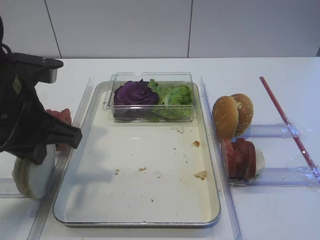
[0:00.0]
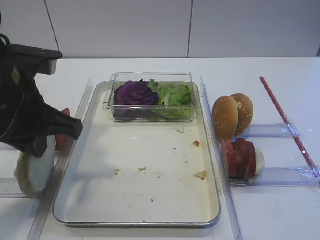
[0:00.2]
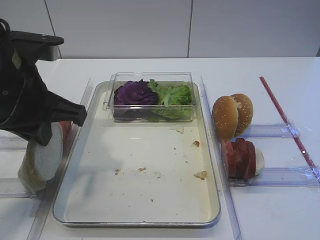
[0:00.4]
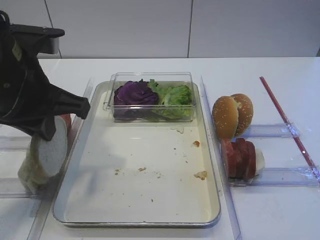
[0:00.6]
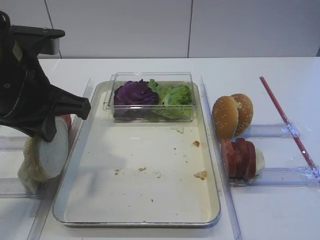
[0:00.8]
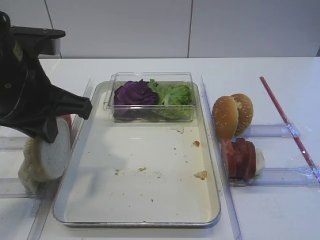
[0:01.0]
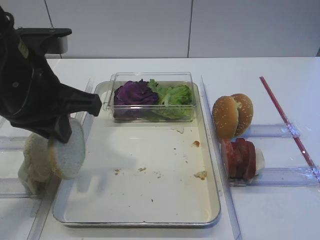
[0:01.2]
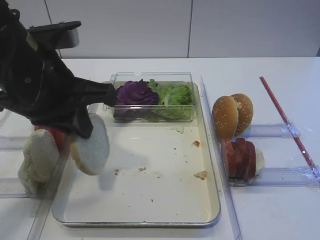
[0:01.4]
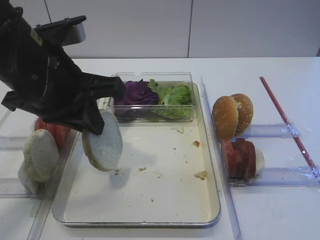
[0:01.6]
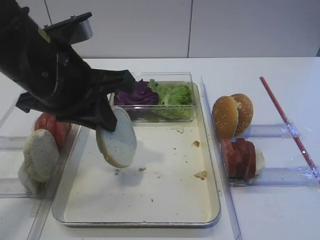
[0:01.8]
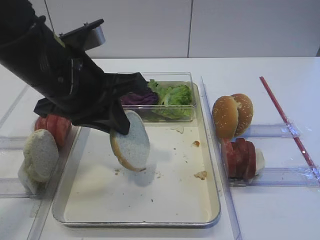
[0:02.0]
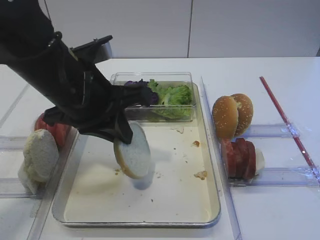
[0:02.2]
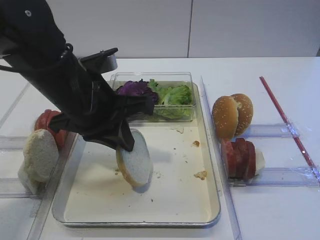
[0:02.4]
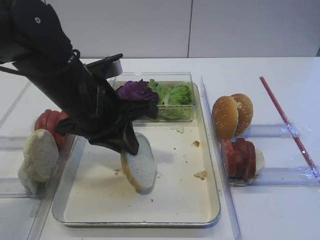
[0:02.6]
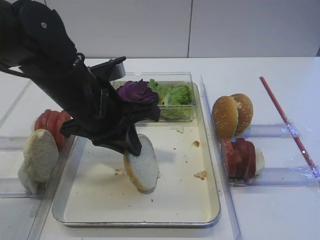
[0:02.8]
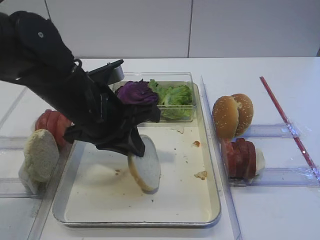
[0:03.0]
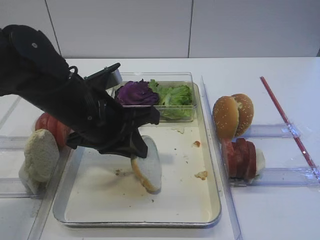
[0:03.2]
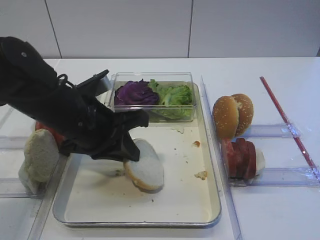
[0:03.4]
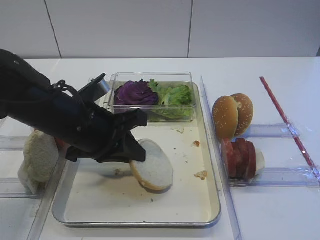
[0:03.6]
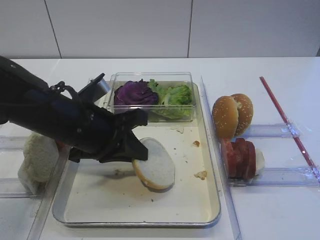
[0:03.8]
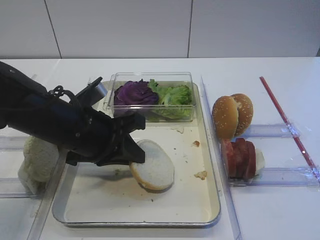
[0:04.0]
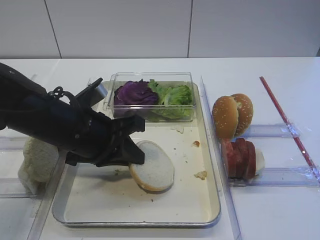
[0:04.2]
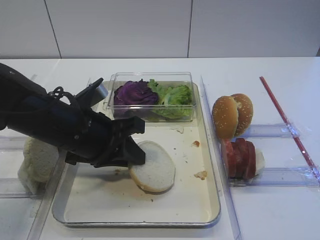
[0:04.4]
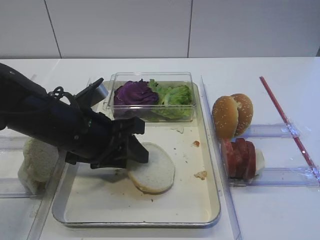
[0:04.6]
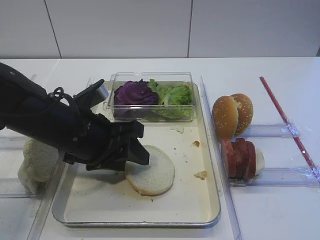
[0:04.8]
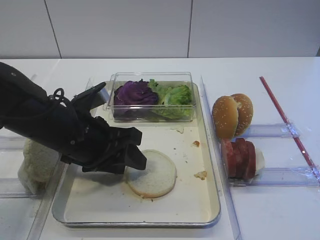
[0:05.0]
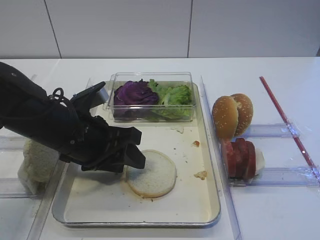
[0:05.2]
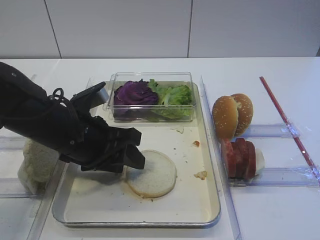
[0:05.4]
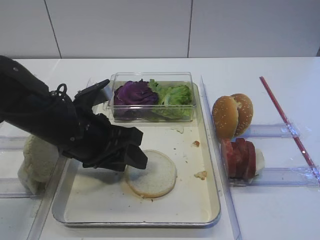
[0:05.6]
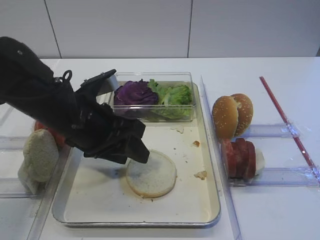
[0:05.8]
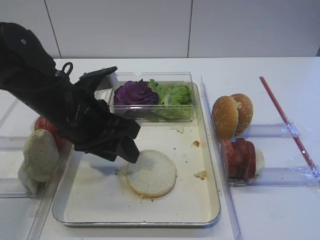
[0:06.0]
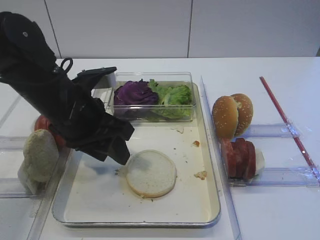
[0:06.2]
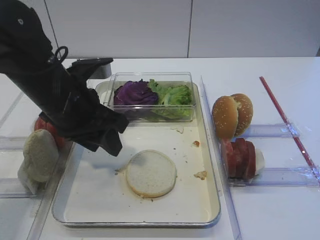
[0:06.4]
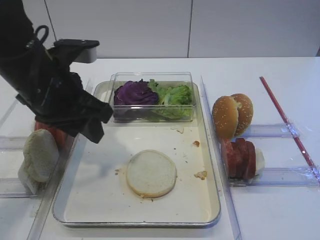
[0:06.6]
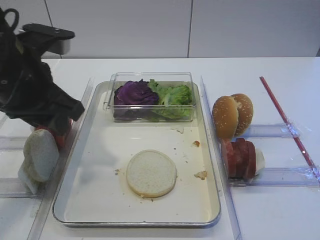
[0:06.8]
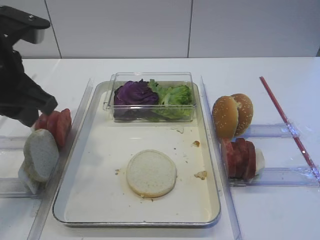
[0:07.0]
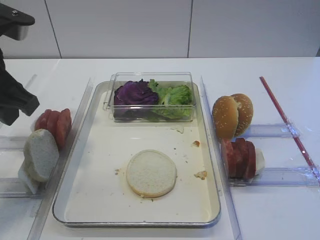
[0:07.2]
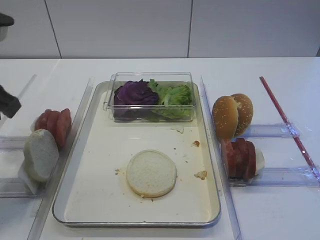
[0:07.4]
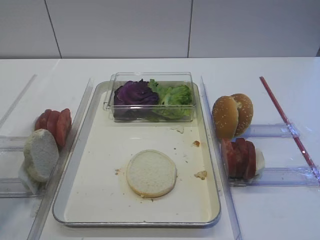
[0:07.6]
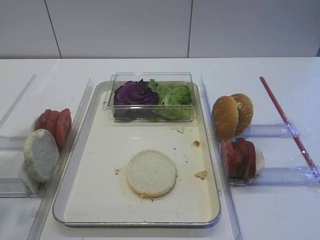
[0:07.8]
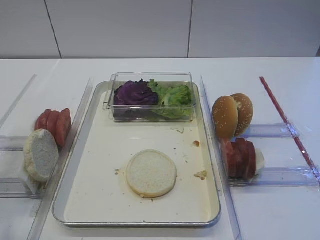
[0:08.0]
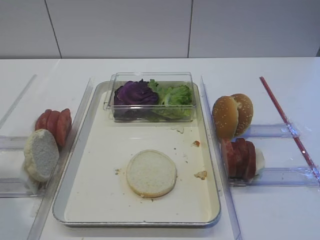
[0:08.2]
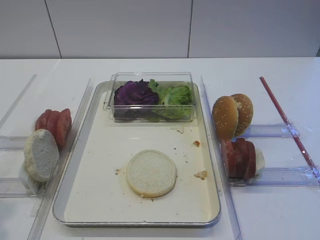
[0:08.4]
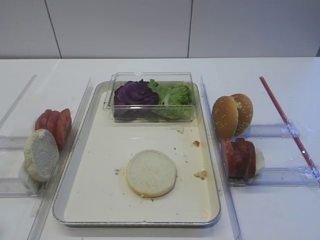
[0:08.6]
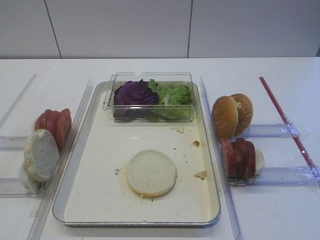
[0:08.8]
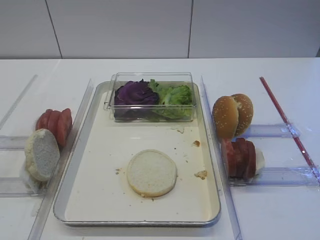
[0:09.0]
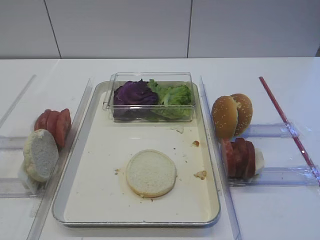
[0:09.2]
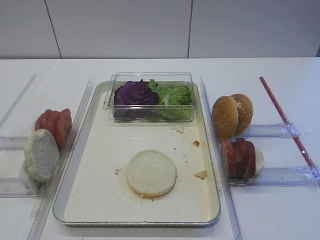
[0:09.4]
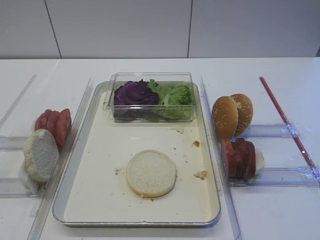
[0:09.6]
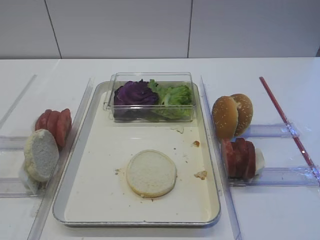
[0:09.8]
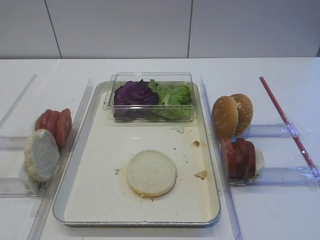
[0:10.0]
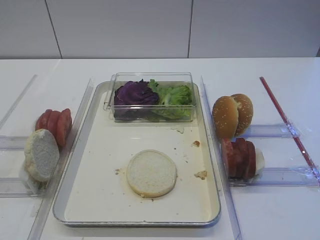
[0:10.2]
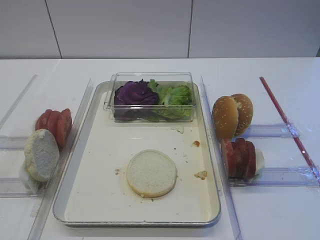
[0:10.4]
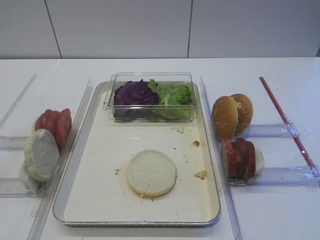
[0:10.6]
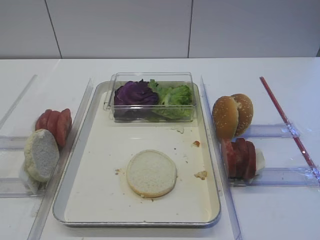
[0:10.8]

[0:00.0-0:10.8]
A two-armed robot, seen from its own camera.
Step, 0:01.2 to 0:05.8: Place the bread slice on the tray with the left gripper.
0:00.0 to 0:01.6: The left gripper changes place by about 5 cm.
0:01.6 to 0:03.0: The left gripper is displaced downward by approximately 10 cm.
0:03.0 to 0:04.6: The left gripper opens up.
0:06.2 to 0:07.8: The left gripper is displaced to the left, upward and backward by some 20 cm.
0:07.8 to 0:09.2: The left gripper travels backward by roughly 20 cm.
0:09.2 to 0:10.8: Both grippers stay put.

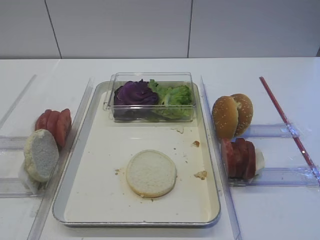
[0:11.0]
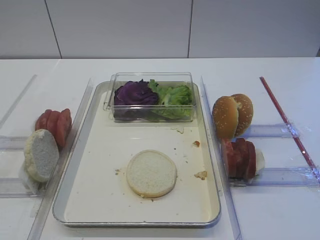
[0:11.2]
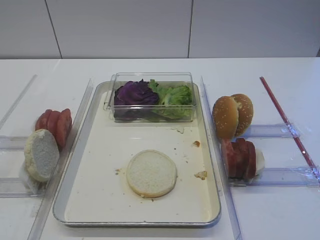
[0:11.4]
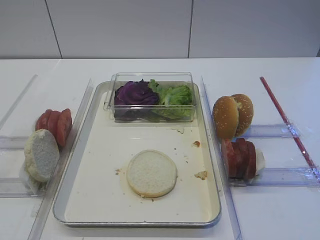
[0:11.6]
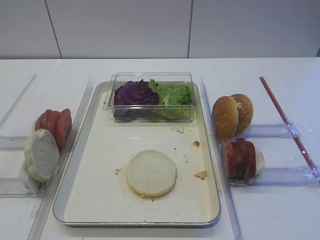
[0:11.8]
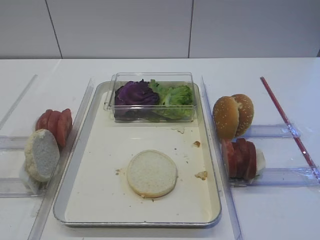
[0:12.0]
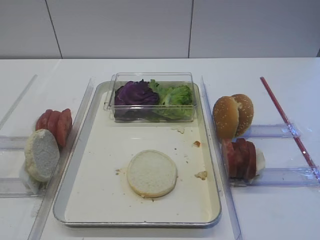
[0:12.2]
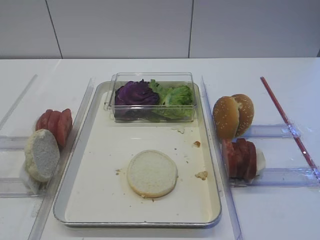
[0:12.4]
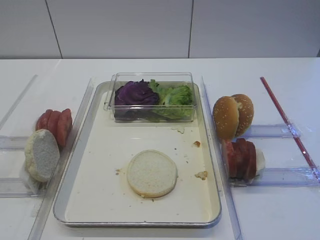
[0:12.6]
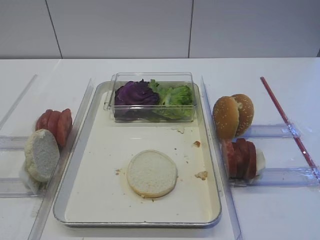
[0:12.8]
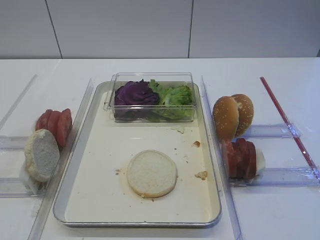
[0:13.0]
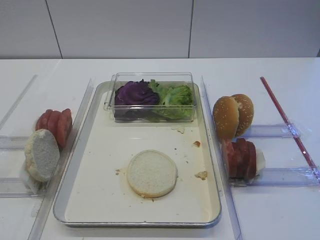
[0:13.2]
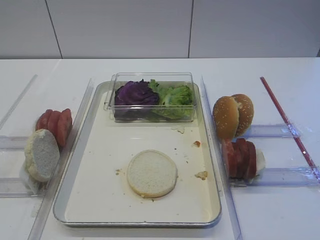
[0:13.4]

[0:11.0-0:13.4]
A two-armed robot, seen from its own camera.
0:12.2 to 0:13.4: Both grippers stay put.

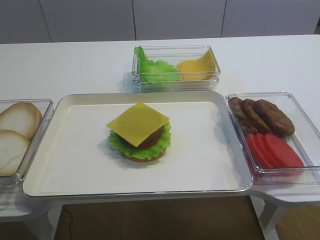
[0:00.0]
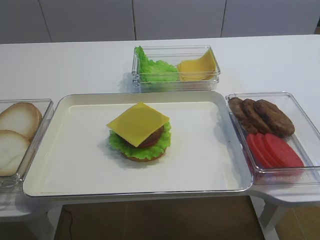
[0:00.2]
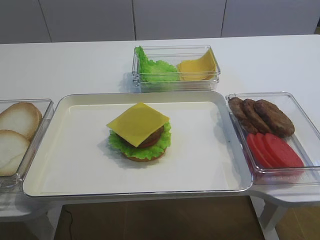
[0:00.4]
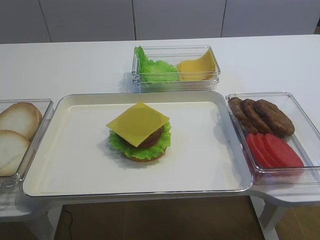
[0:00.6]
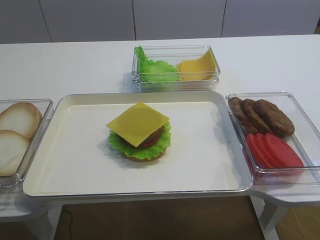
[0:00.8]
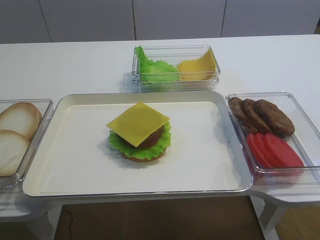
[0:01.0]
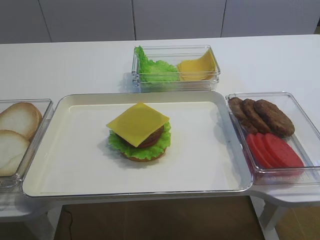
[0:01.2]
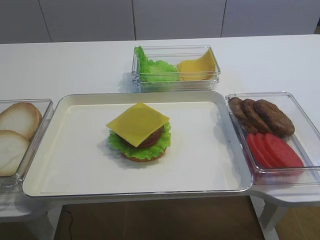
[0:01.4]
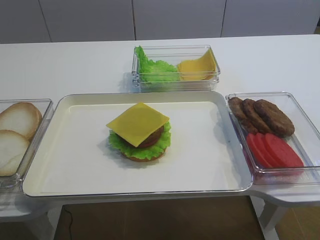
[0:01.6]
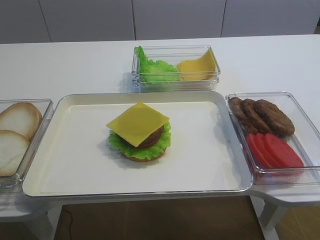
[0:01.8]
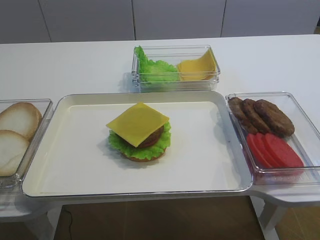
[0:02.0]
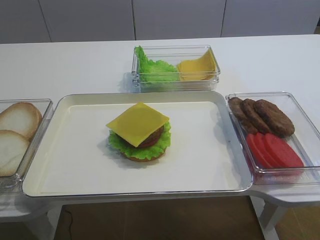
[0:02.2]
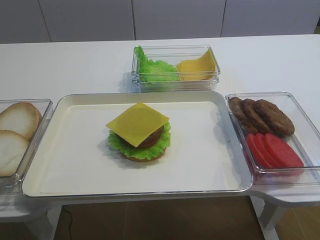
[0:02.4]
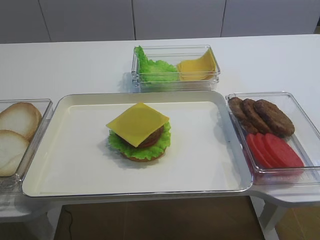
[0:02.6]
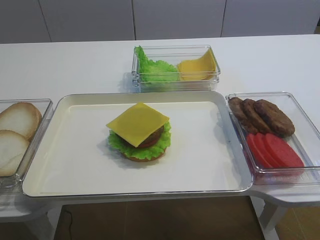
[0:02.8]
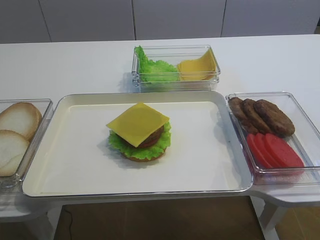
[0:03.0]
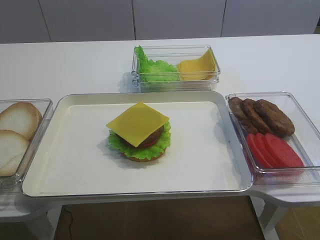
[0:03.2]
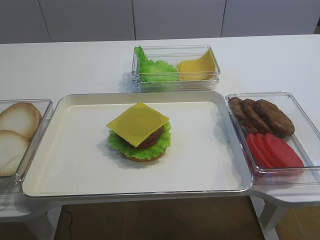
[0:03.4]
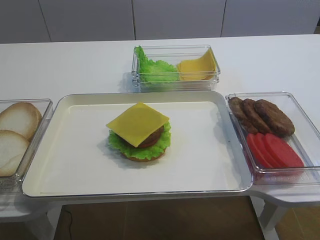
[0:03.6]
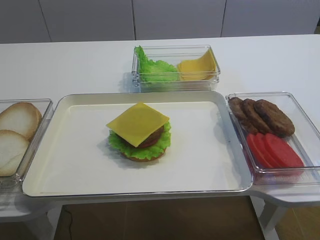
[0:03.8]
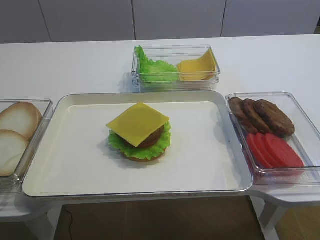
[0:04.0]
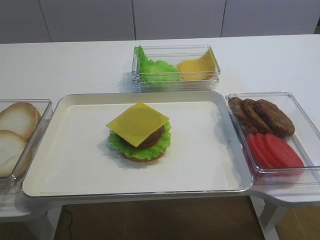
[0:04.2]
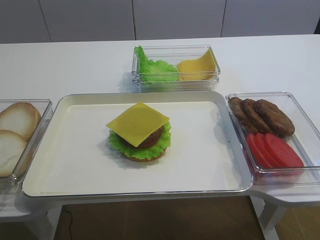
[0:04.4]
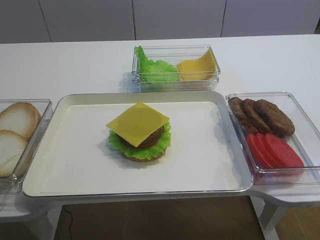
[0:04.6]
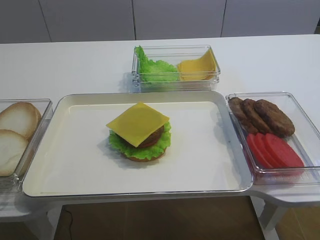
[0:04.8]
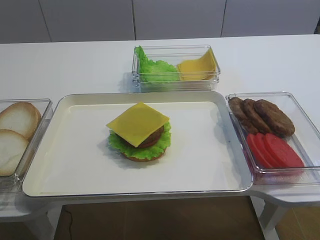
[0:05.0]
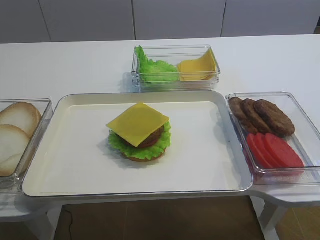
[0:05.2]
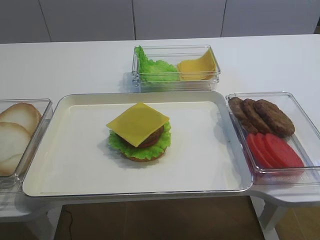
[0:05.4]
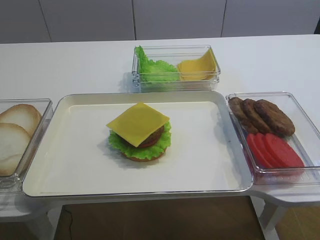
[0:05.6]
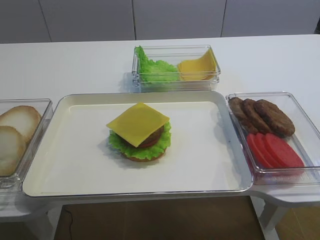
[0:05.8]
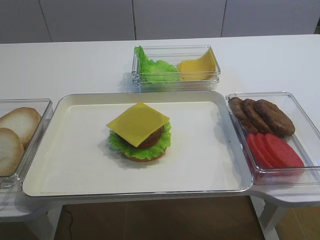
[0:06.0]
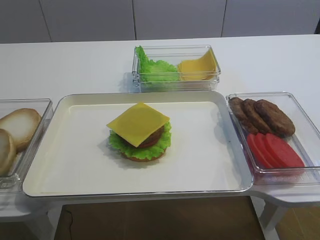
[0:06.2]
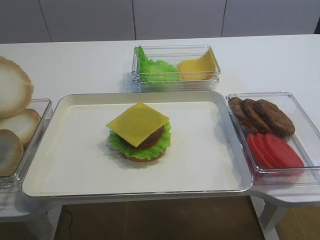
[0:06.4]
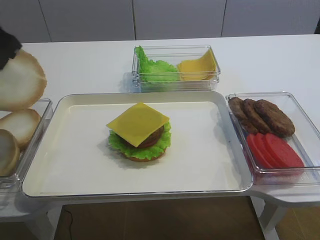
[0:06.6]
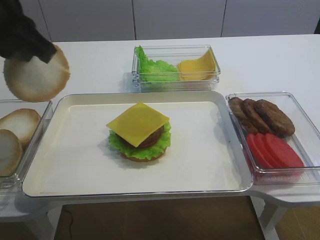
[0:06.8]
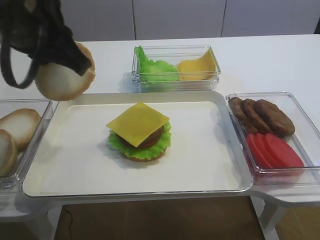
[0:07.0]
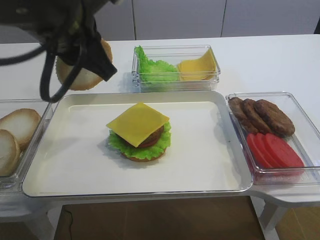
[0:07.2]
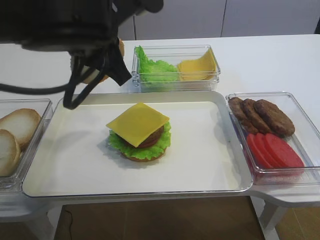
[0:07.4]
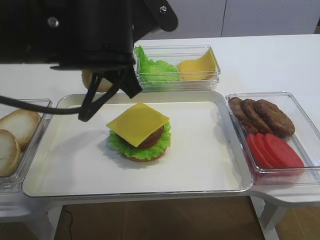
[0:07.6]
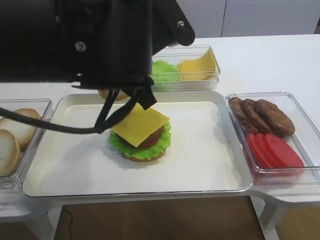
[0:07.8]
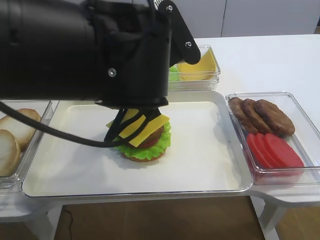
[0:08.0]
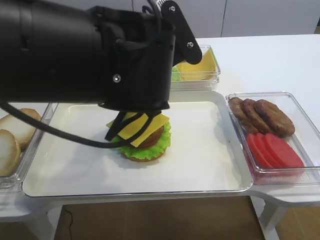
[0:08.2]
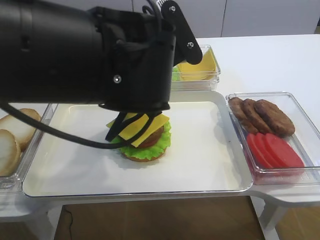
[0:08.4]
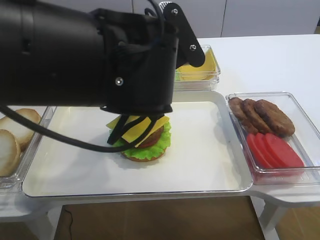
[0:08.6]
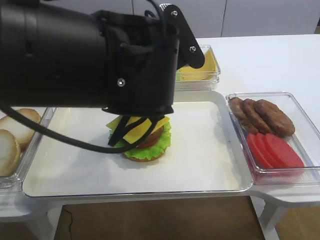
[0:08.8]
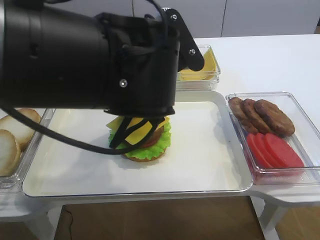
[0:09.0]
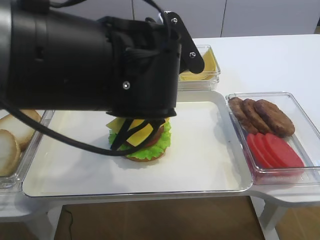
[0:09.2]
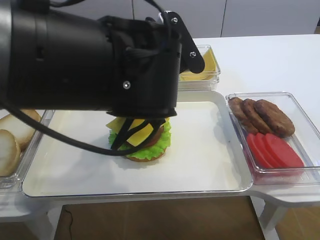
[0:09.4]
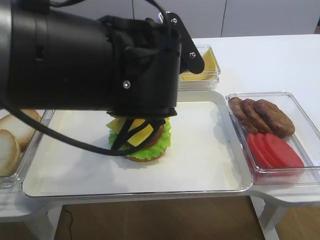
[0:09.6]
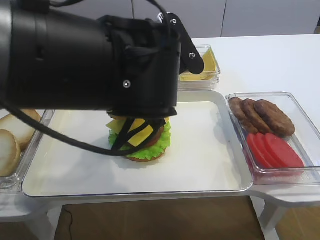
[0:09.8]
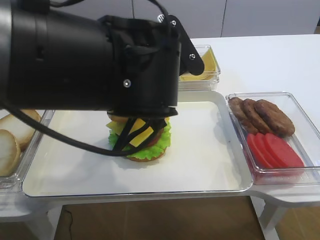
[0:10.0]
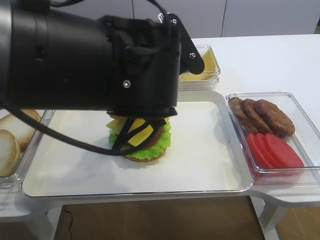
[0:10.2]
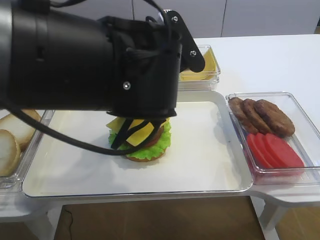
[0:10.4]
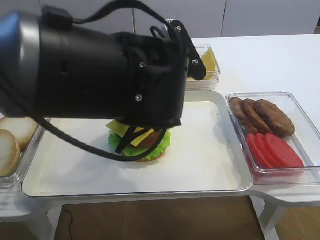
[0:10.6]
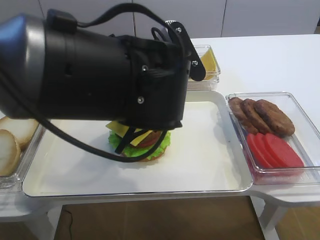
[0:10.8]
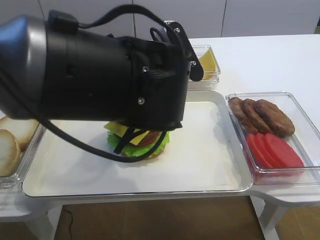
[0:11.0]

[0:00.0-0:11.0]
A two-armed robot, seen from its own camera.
Step, 0:00.0 to 0:06.2: Pick up the hamburger lid with the left gripper.
0:04.8 to 0:06.2: The left gripper travels upward by about 10 cm.
0:06.2 to 0:07.8: The left gripper heads to the right, covering about 30 cm.
0:09.4 to 0:11.0: Neither gripper changes place.
